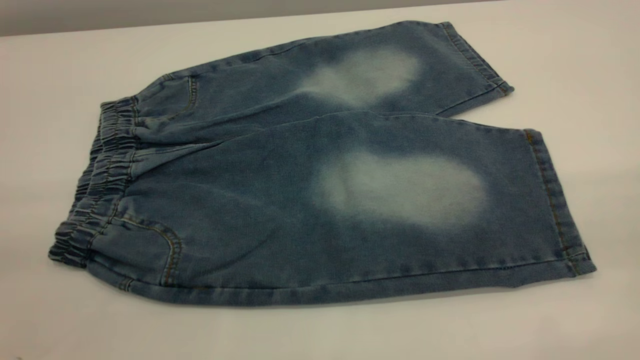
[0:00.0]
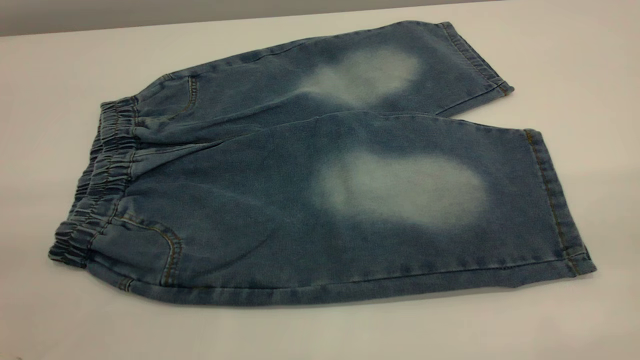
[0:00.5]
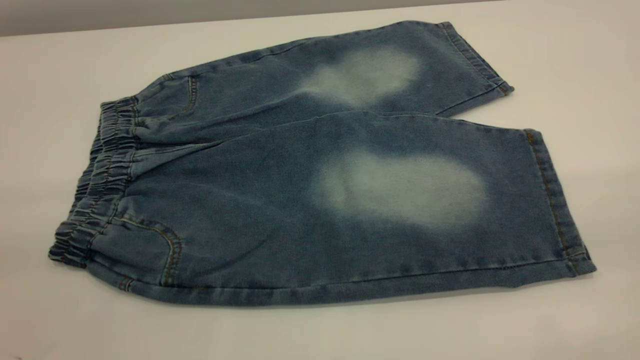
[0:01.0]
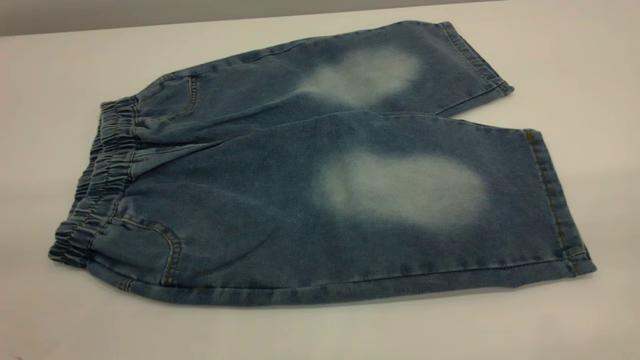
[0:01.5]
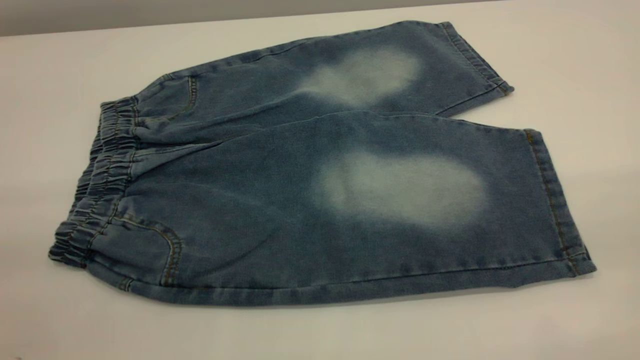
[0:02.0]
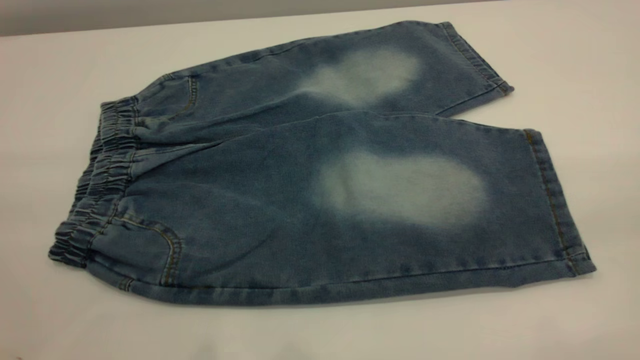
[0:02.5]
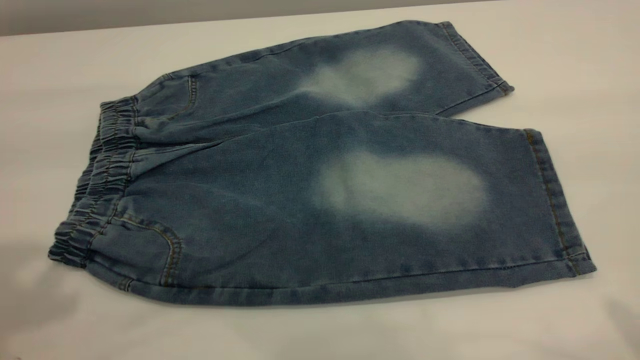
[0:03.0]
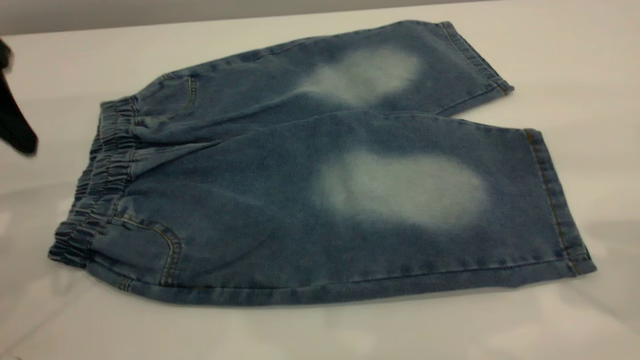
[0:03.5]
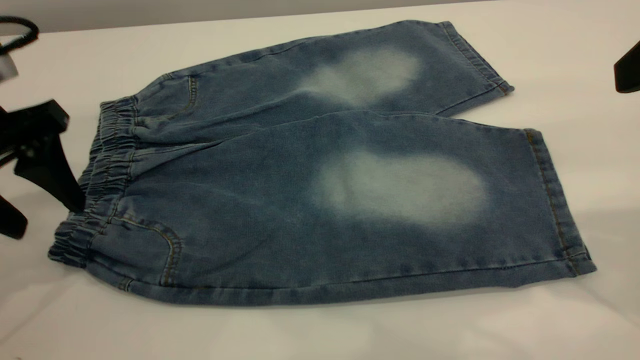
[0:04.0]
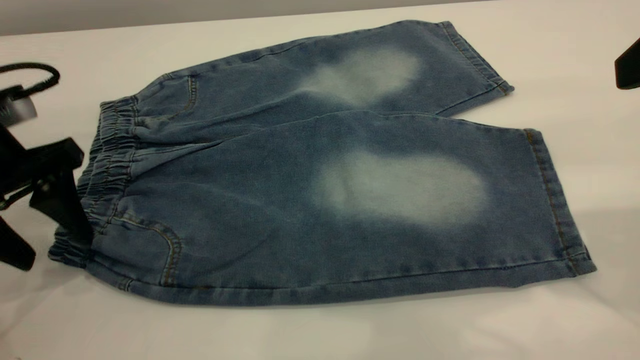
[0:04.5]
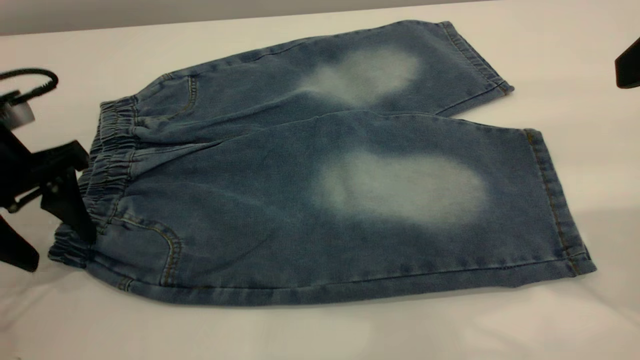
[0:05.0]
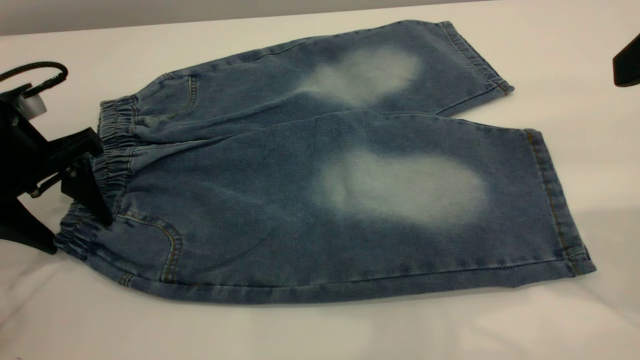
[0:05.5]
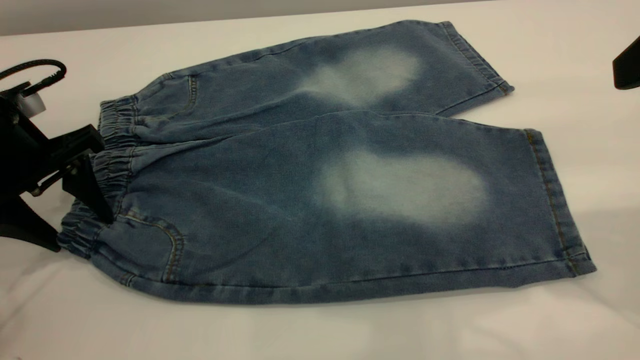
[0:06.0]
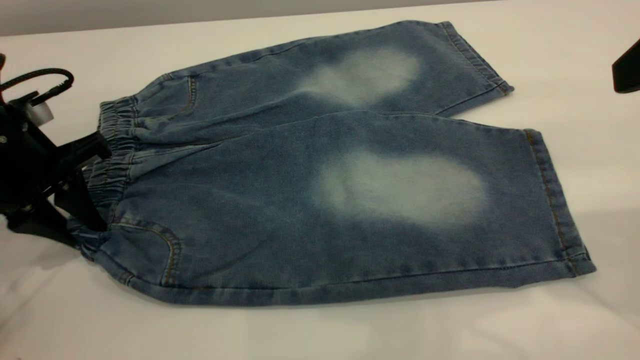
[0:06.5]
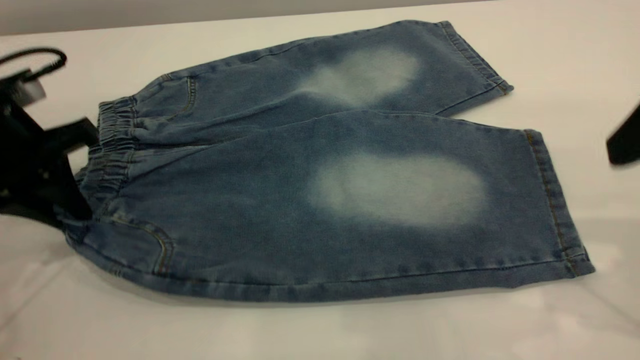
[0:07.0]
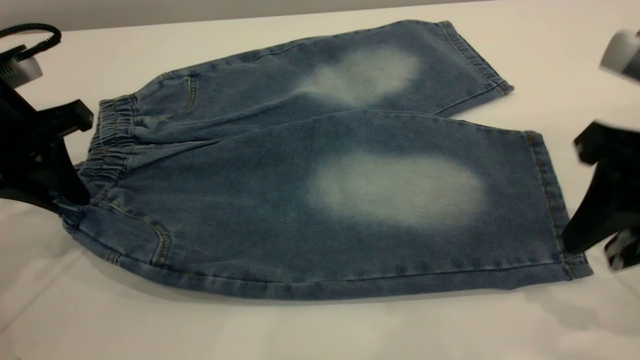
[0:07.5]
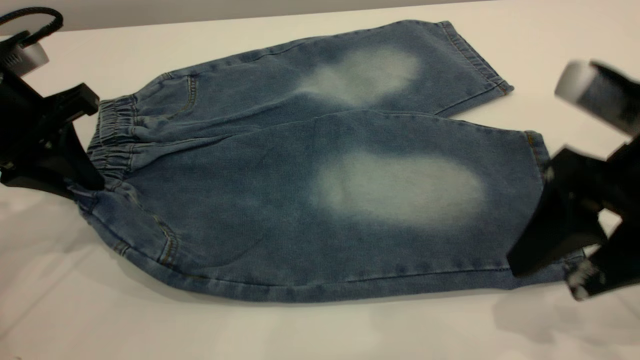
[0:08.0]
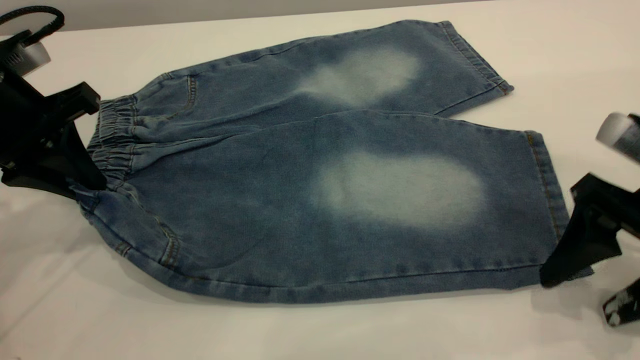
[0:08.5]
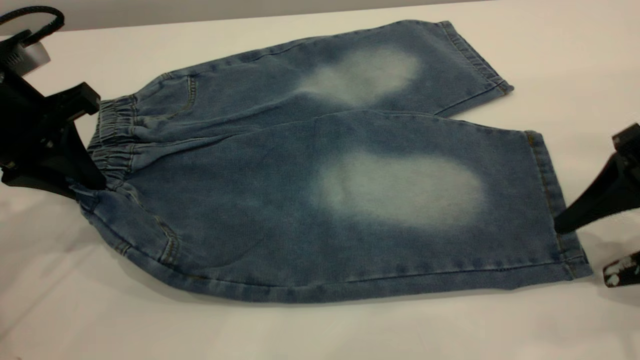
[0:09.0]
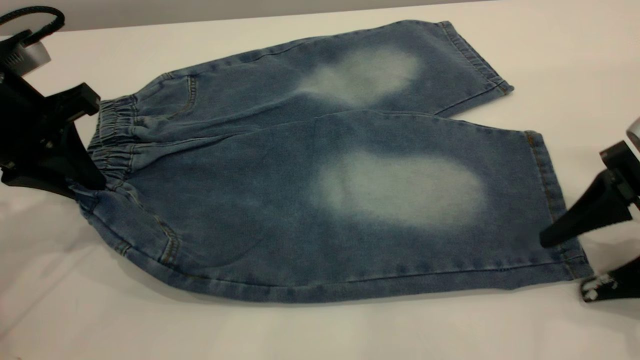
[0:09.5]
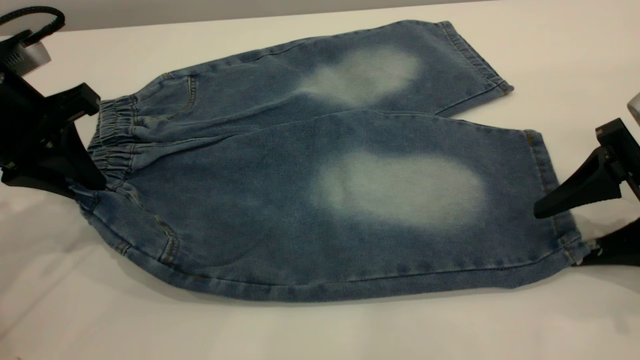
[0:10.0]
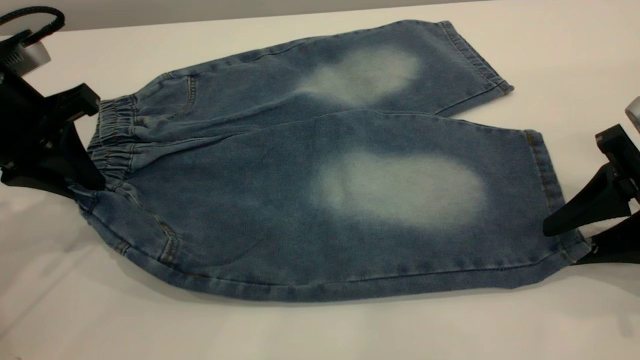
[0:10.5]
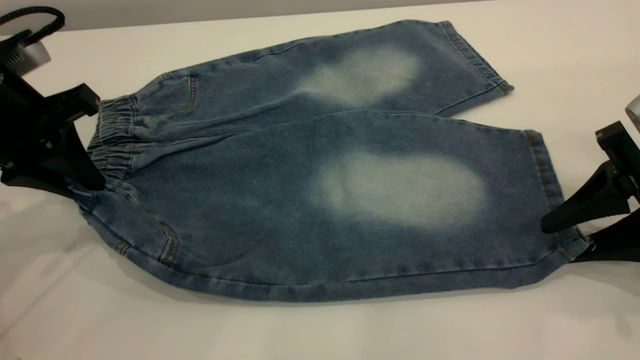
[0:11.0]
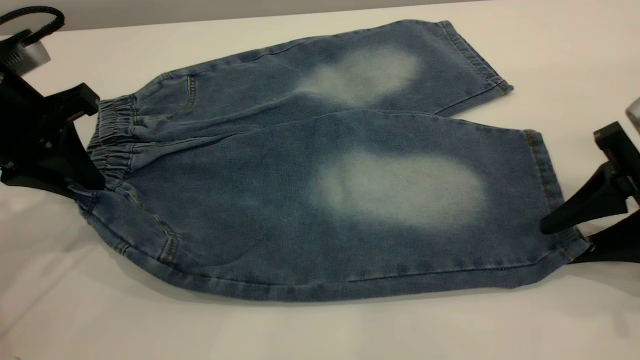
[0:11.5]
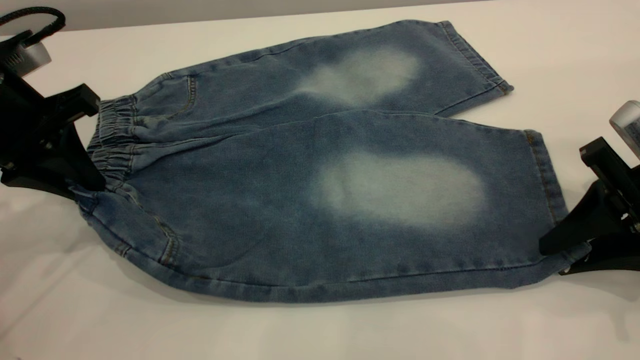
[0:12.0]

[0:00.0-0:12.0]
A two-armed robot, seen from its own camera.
0:00.0 to 0:02.0: Both grippers stay about where they are.
0:02.0 to 0:04.0: The left gripper is displaced forward and downward by some 30 cm.
0:04.0 to 0:06.0: The left gripper changes place by about 5 cm.
0:06.0 to 0:08.0: The right gripper moves downward, approximately 15 cm, and opens. The left gripper closes.
0:08.0 to 0:10.0: The right gripper moves to the right and downward, about 10 cm.
0:10.0 to 0:12.0: The right gripper closes.

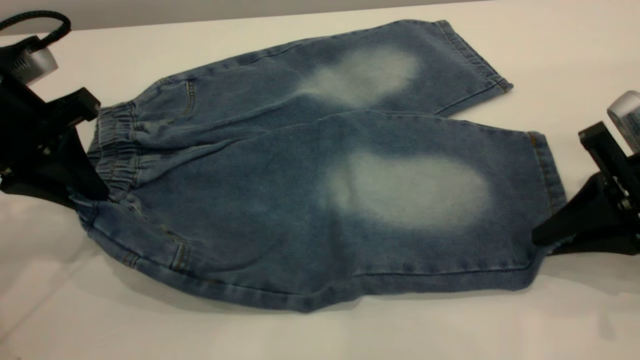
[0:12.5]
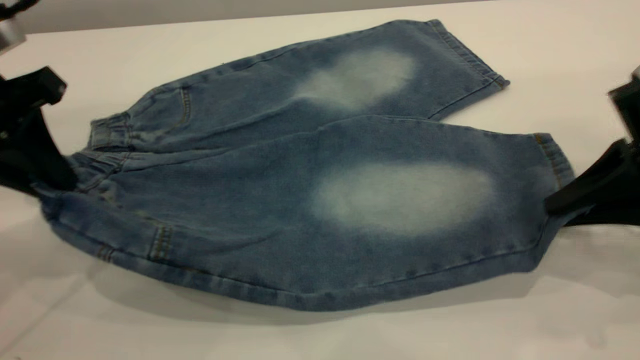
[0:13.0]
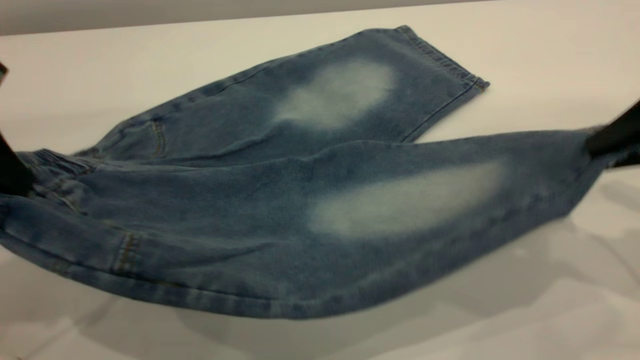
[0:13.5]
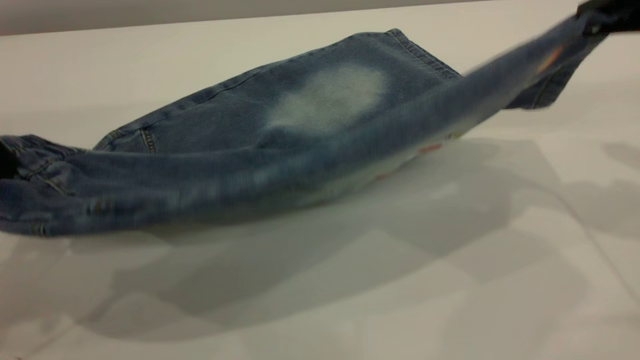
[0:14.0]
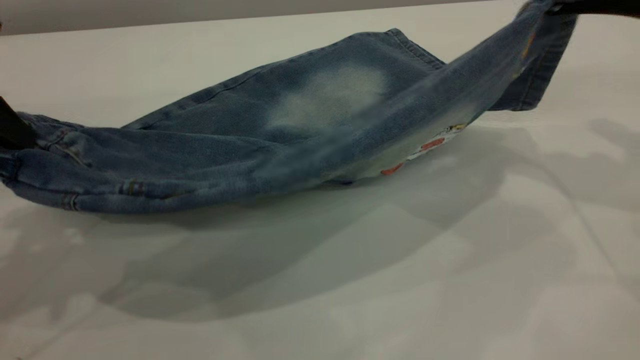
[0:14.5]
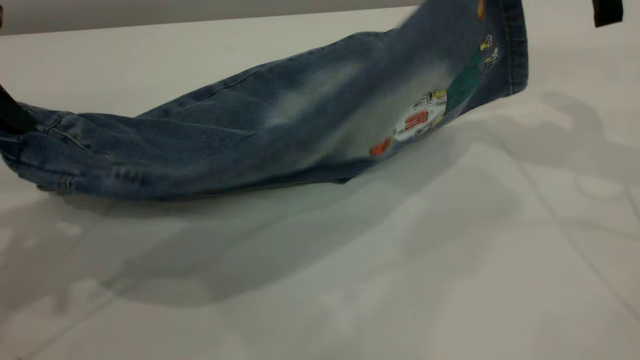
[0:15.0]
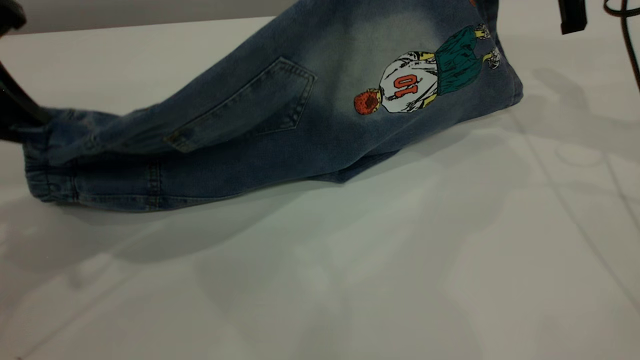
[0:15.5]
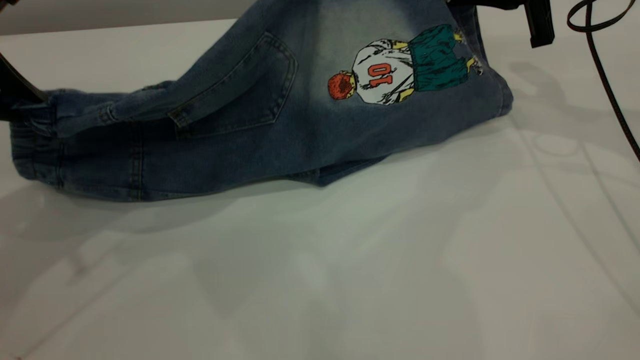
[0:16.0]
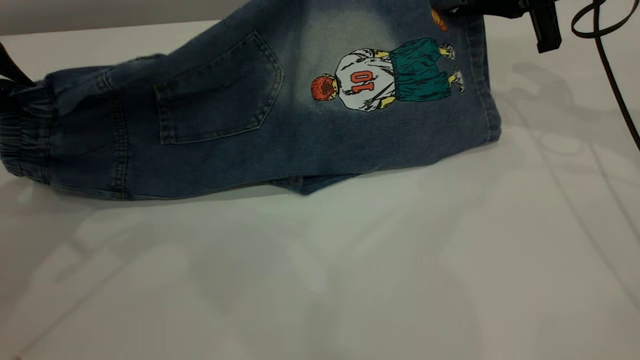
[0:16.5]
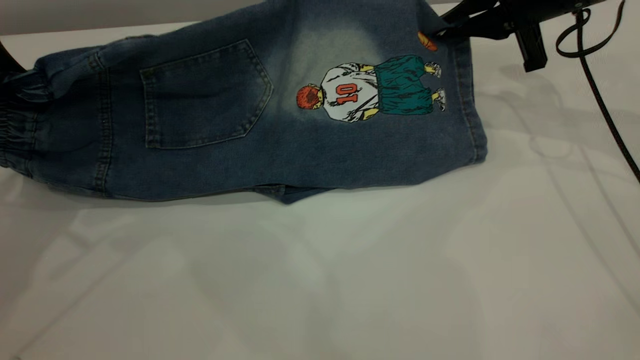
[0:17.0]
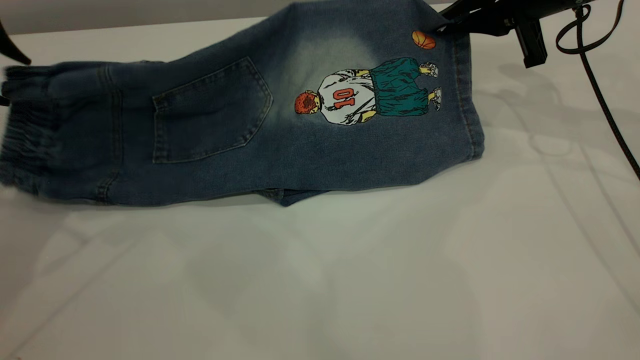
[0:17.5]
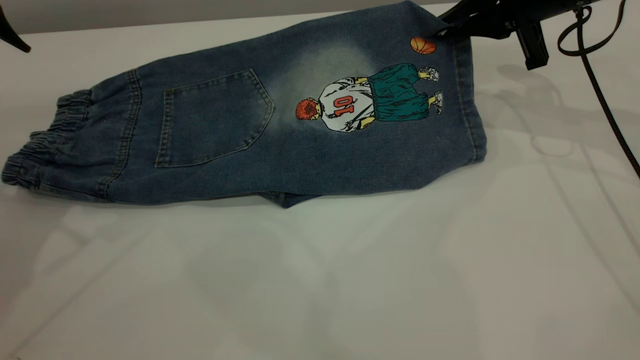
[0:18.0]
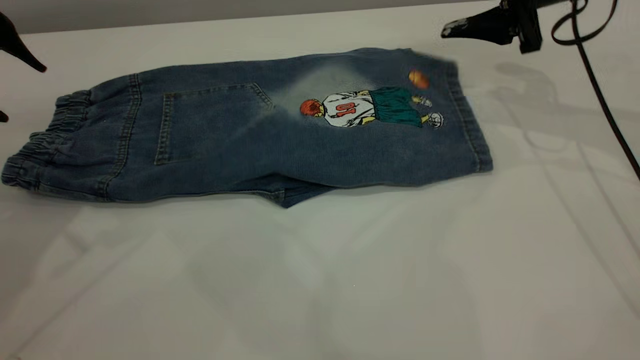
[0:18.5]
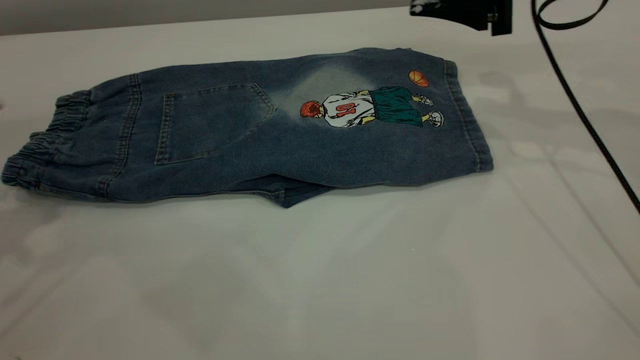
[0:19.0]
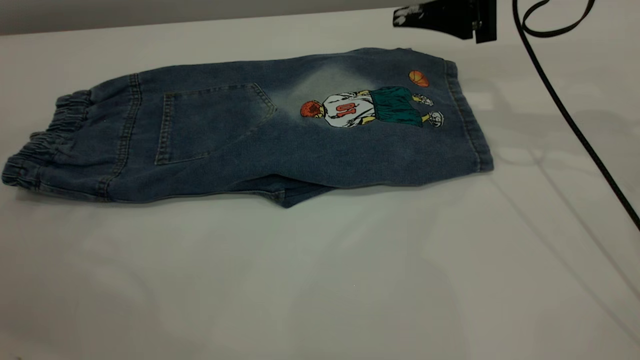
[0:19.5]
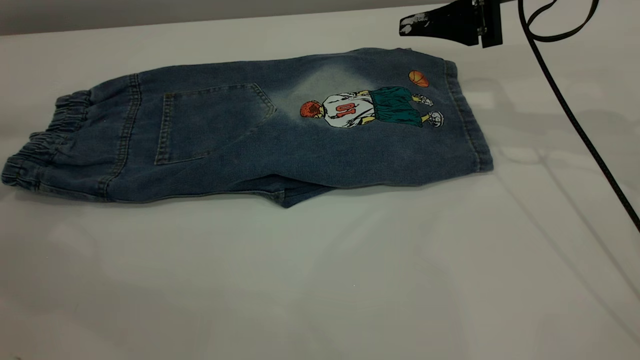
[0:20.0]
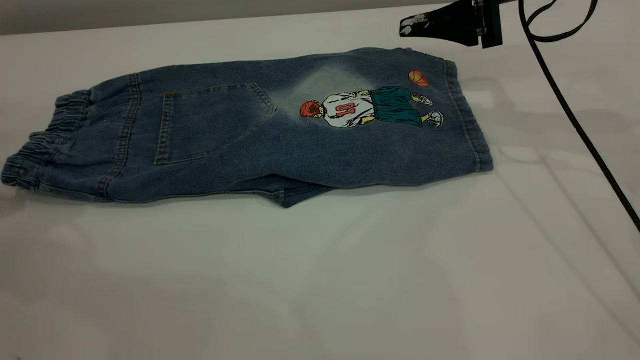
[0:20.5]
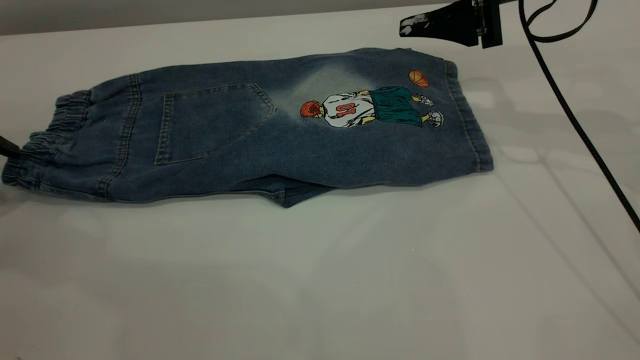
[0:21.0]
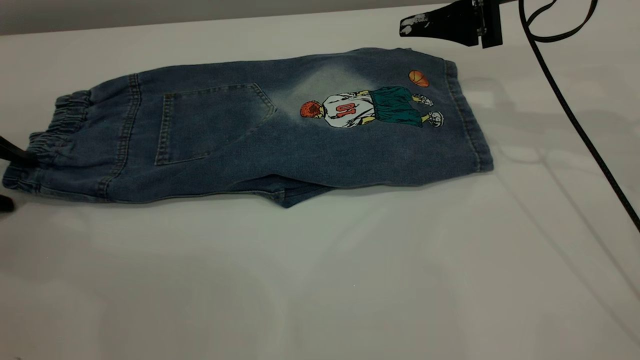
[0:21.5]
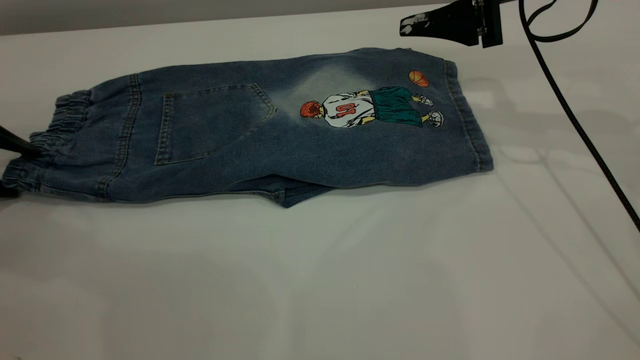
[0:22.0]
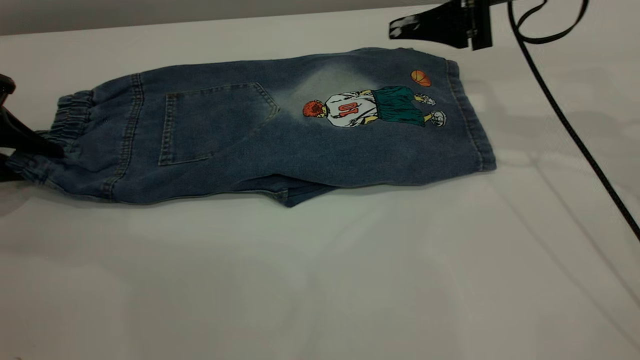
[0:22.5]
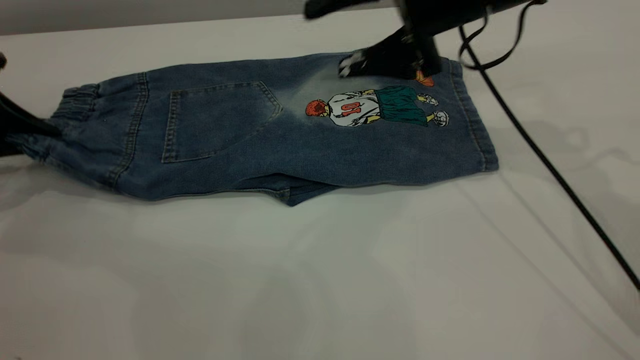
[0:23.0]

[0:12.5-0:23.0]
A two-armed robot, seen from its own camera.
Step, 0:12.5 to 0:18.5: Fold the bottom of the pants upward.
0:12.5 to 0:14.5: The left gripper travels upward and backward by approximately 10 cm, while the right gripper shifts some 15 cm upward and forward.
0:14.5 to 0:16.5: The right gripper travels forward and downward by about 15 cm. Meanwhile the left gripper moves some 5 cm.
0:16.5 to 0:19.0: The right gripper opens up; the left gripper is displaced to the left by about 5 cm, and opens.
0:19.0 to 0:21.0: The left gripper travels downward and to the left by about 10 cm.
0:21.0 to 0:23.0: The right gripper travels to the left by about 10 cm, while the left gripper closes up.
